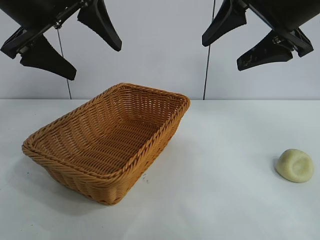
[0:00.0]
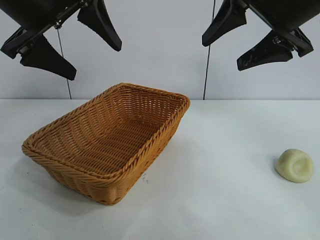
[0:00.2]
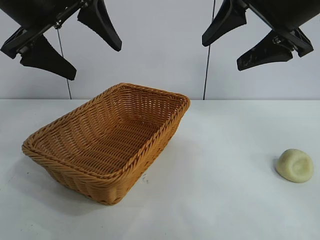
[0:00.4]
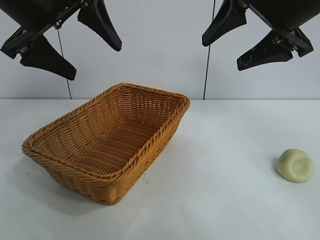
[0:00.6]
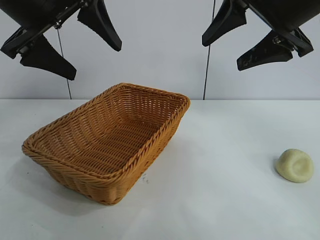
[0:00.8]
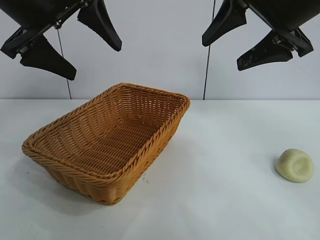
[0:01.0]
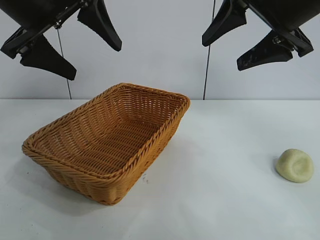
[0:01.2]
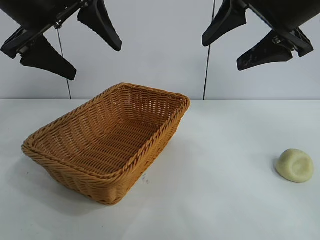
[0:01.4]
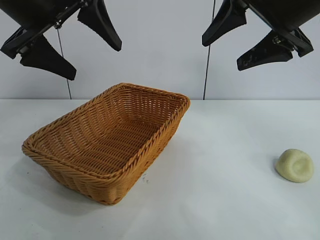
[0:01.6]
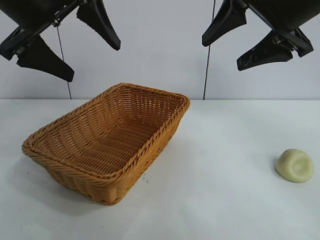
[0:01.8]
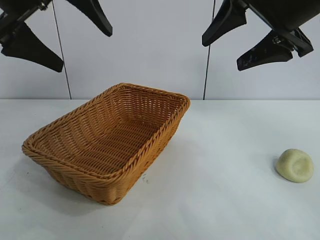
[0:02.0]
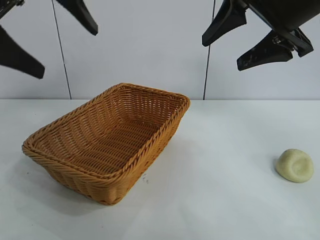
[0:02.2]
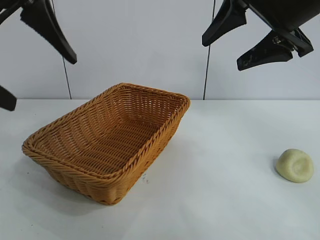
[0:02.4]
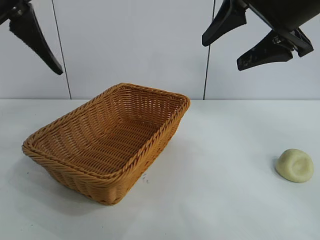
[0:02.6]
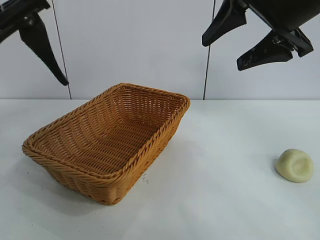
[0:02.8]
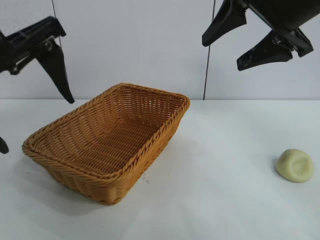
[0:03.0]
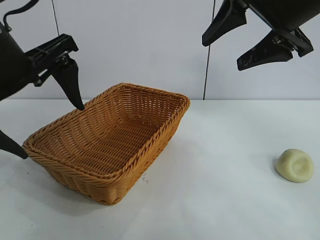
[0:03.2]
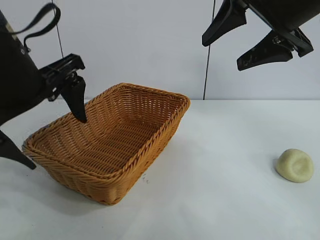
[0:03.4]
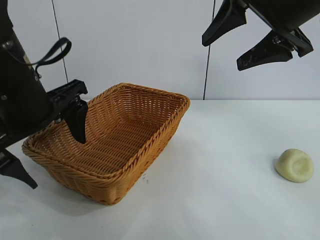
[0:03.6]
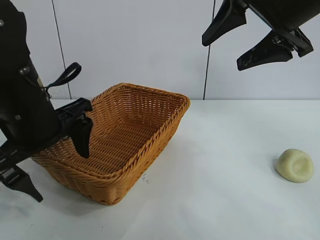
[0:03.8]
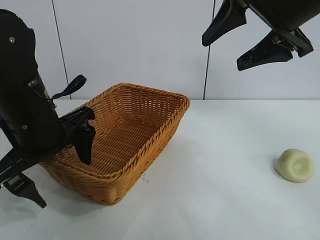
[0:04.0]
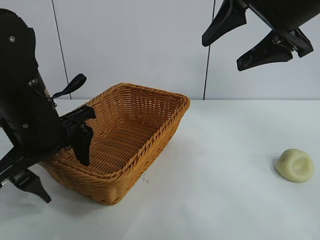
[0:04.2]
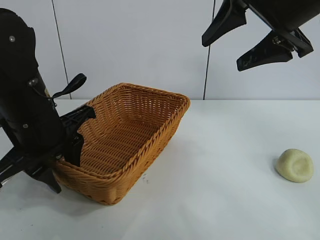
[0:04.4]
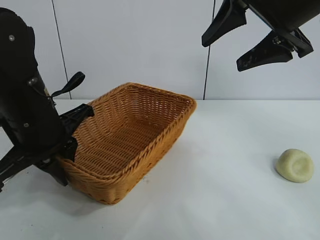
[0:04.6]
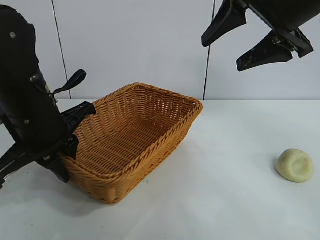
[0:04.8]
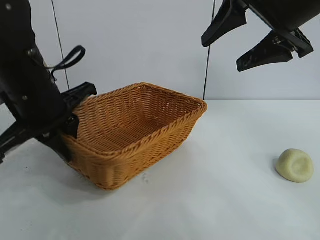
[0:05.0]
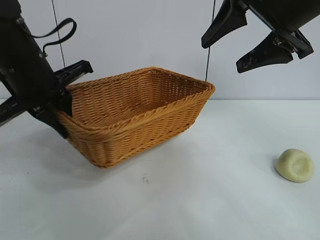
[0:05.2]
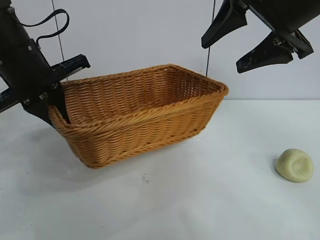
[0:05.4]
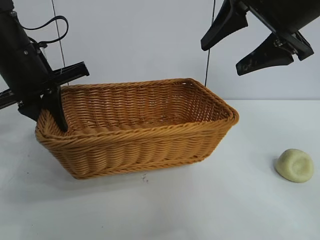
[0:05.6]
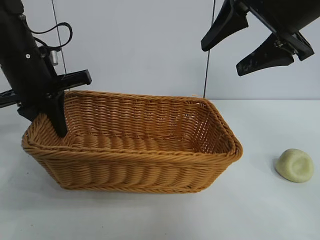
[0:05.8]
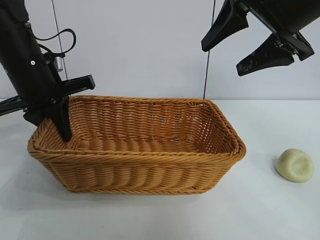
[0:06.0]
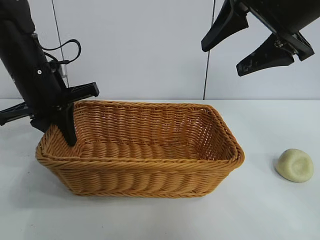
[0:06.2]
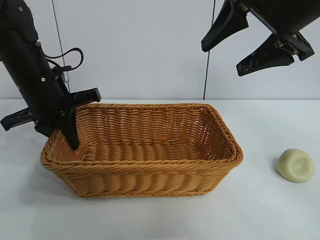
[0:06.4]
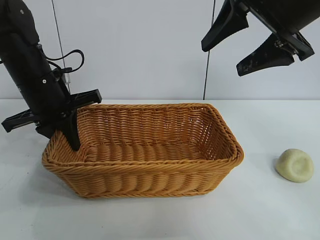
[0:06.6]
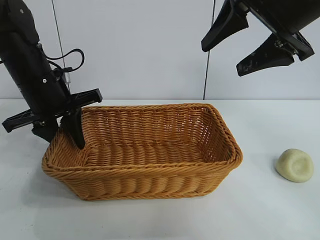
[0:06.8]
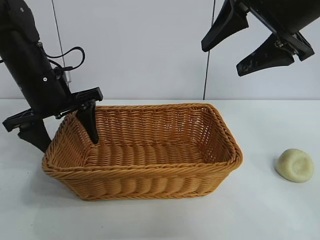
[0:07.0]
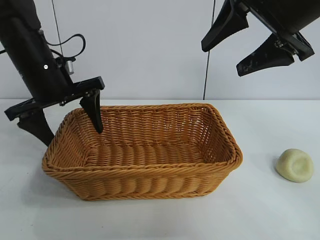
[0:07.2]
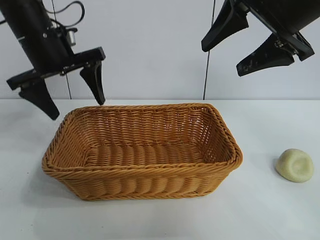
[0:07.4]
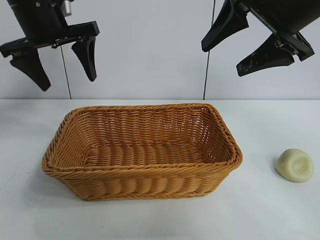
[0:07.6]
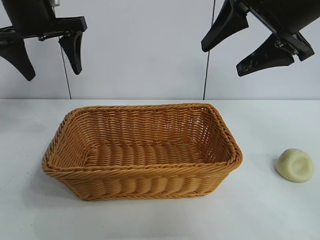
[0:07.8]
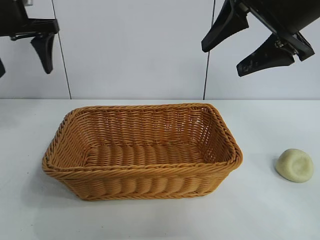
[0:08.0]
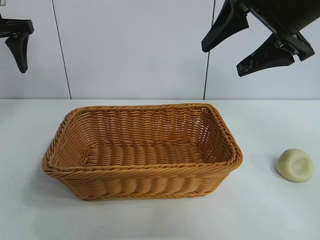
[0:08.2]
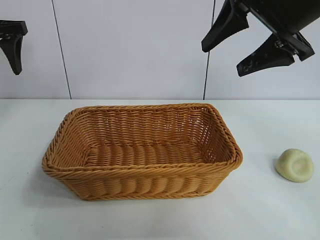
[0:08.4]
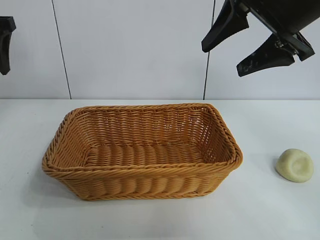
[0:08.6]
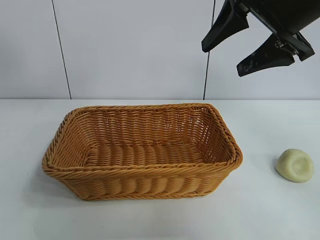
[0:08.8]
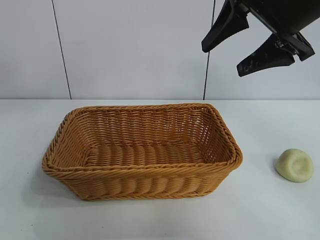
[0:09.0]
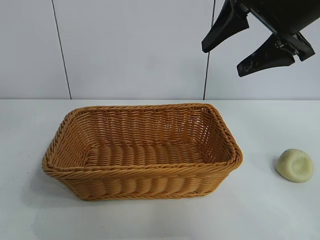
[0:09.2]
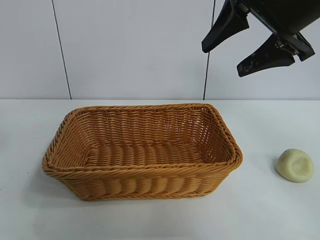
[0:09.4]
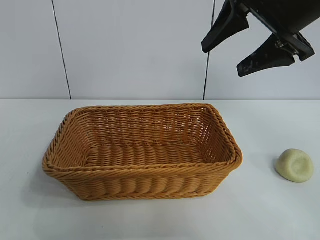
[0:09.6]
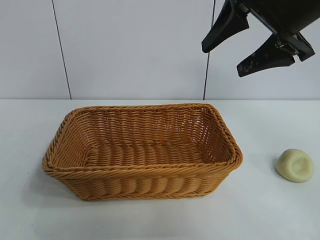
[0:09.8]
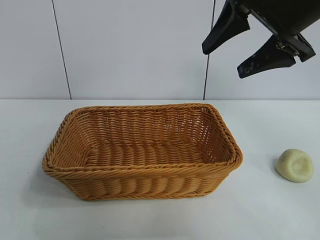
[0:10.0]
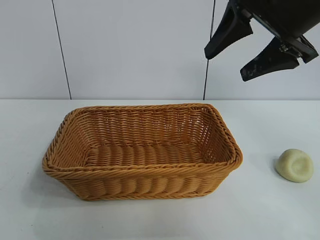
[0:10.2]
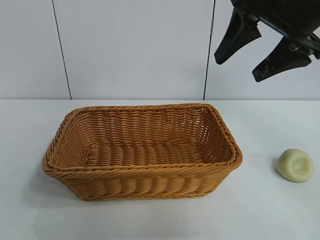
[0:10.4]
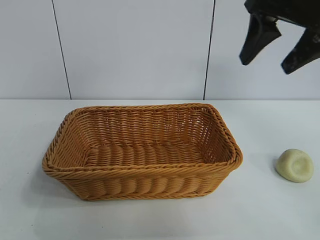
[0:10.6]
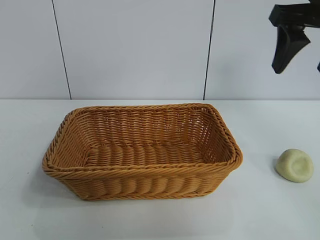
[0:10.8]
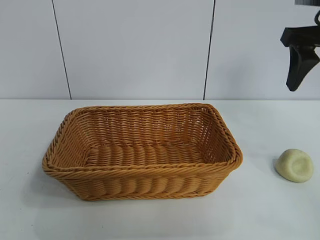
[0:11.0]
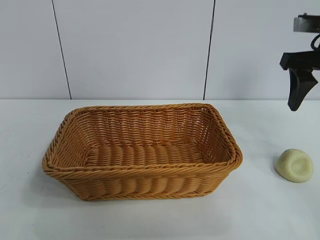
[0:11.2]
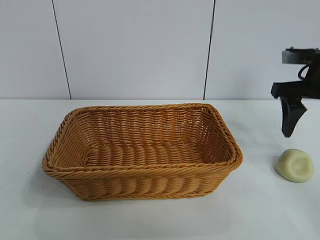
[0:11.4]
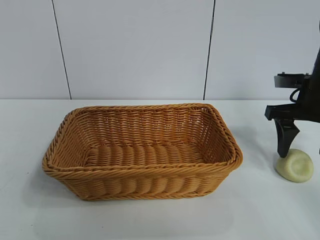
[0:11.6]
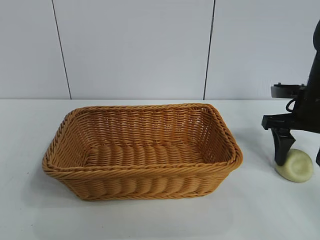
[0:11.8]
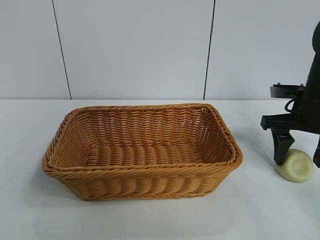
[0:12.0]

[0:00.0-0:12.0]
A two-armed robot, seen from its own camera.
Task of the whole recording: pick up the egg yolk pastry and put it into the basket.
Step, 0:01.6 to 0:04.4: Grasp the basket with left gripper.
Step, 0:04.8 to 0:07.0: Place the basket in the center of view with left gripper.

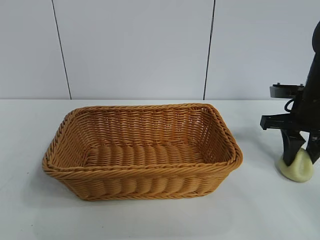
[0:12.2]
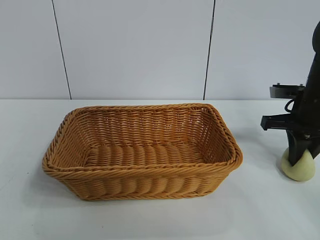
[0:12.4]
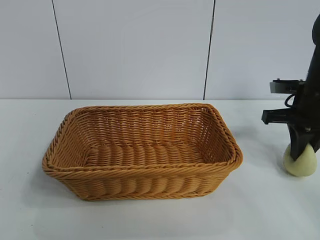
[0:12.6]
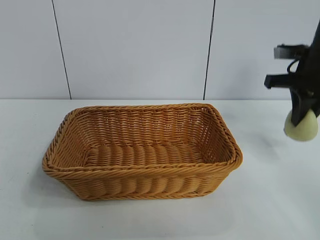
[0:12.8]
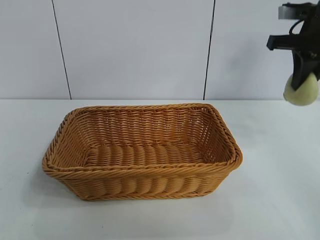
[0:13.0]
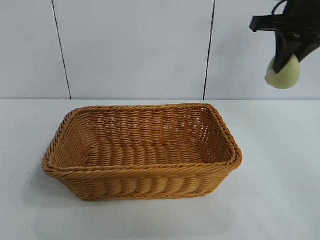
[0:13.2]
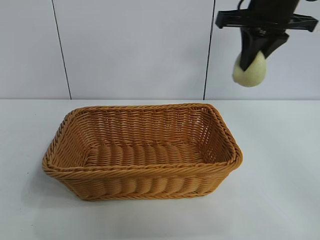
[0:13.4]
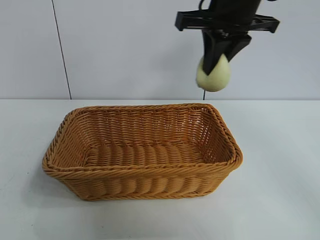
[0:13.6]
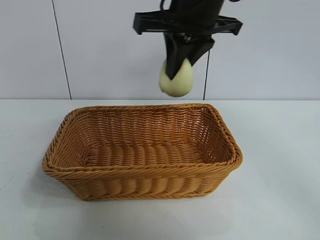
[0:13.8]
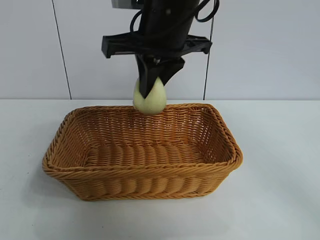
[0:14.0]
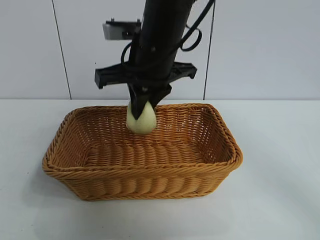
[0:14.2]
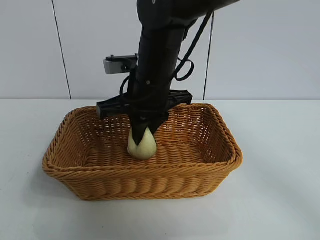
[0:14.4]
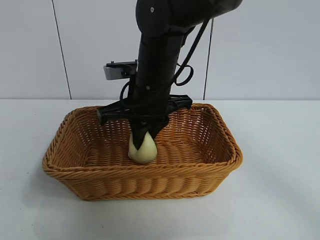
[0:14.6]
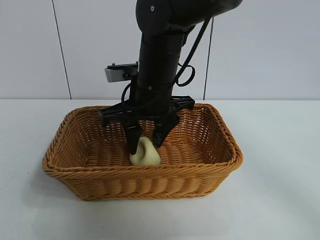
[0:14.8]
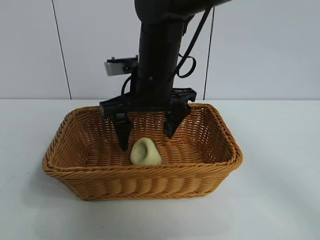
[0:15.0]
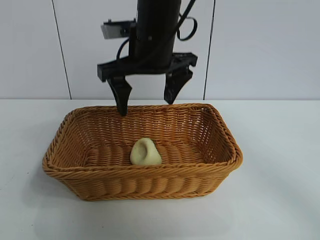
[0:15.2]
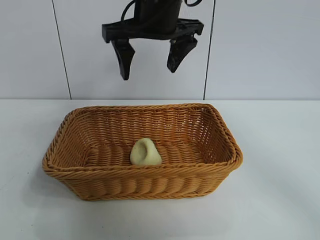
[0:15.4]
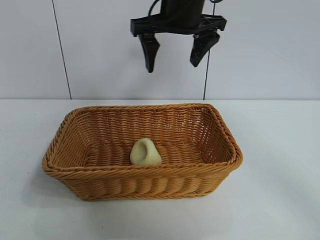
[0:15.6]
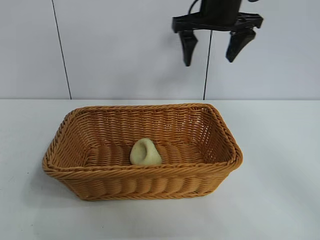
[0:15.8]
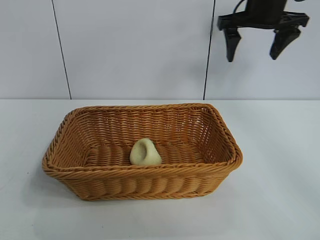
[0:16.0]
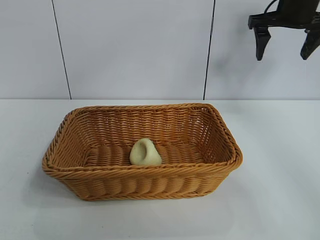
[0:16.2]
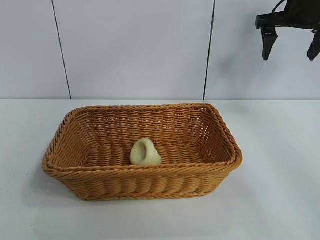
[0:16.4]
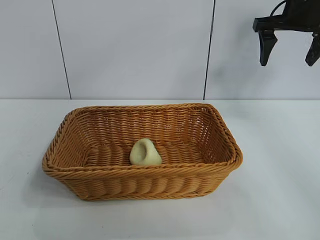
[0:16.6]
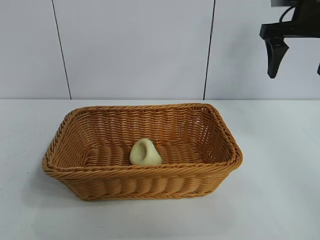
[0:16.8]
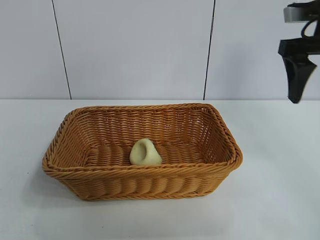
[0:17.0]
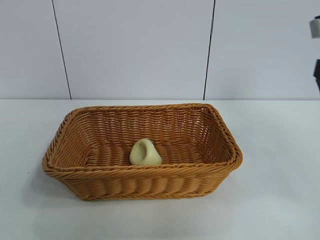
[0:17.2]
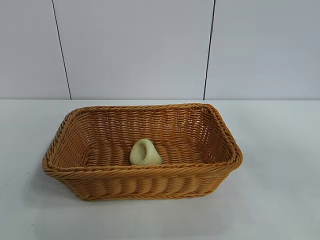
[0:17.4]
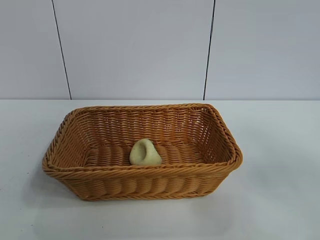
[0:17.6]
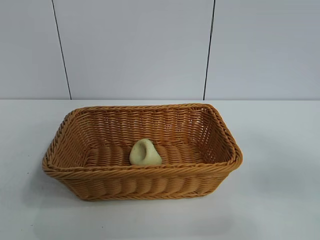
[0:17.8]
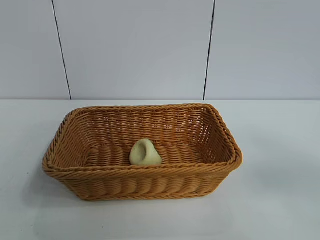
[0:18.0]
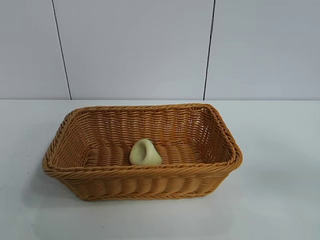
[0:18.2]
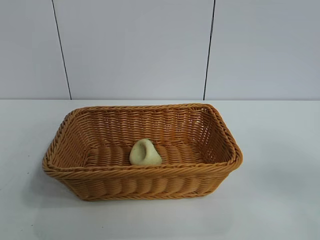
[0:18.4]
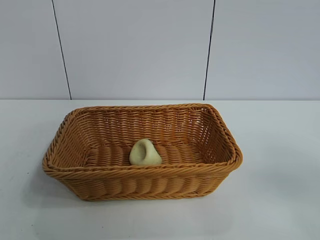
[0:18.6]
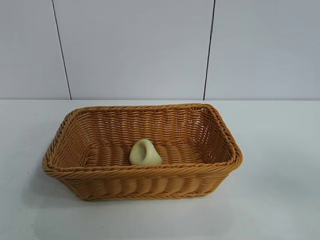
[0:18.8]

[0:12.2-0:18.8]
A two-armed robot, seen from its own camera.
Task of the whole recording: pick up the egg yolk pastry and put it into the basket.
Step, 0:12.4 to 0:14.8: Place the egg yolk pastry in the basket with right gripper.

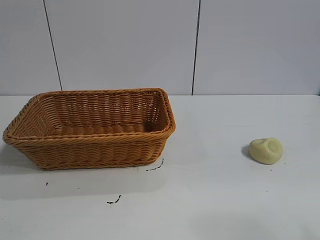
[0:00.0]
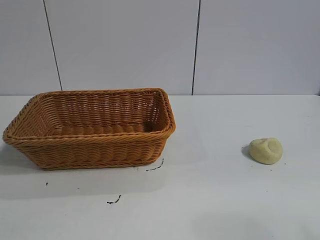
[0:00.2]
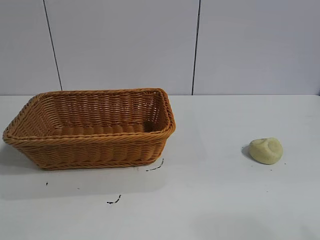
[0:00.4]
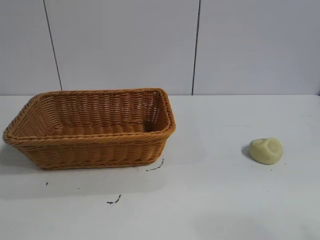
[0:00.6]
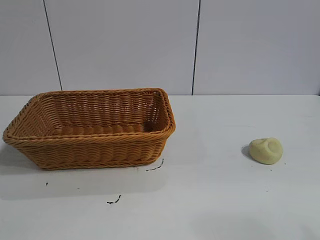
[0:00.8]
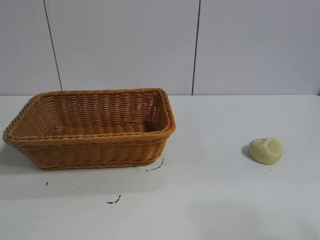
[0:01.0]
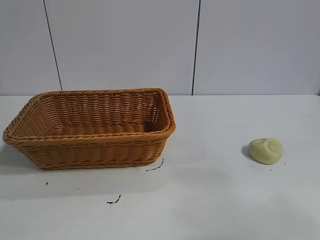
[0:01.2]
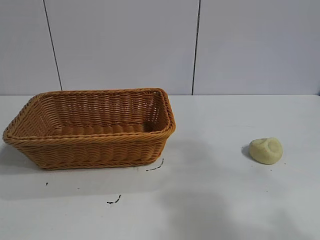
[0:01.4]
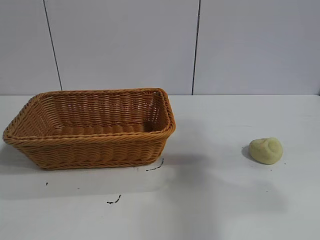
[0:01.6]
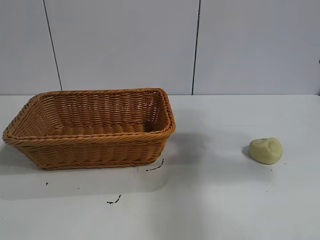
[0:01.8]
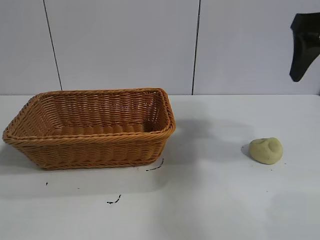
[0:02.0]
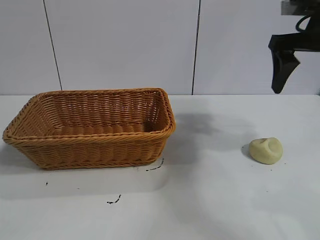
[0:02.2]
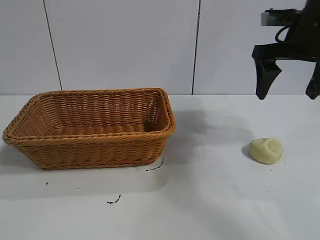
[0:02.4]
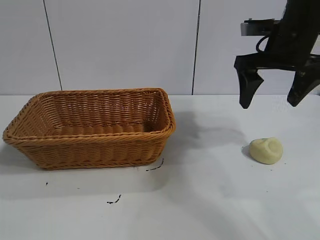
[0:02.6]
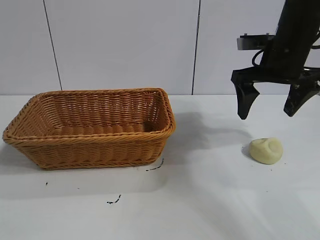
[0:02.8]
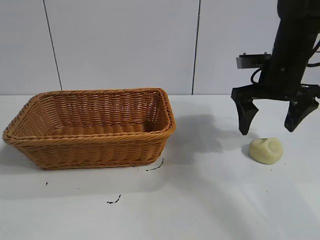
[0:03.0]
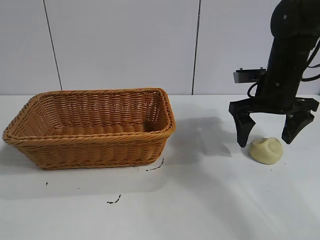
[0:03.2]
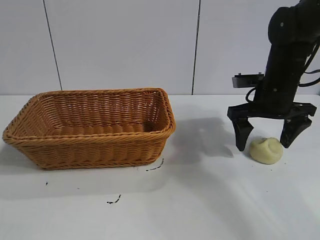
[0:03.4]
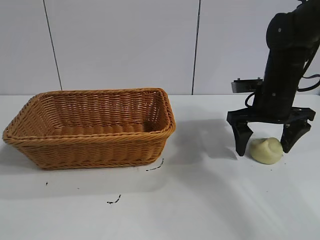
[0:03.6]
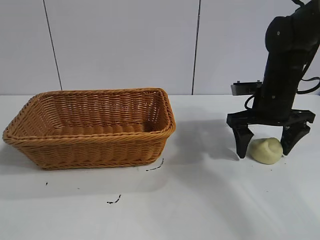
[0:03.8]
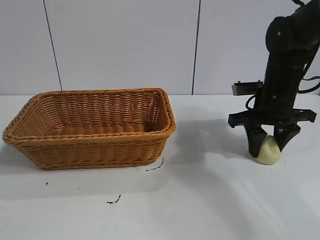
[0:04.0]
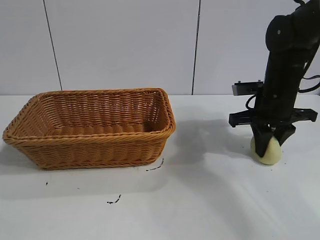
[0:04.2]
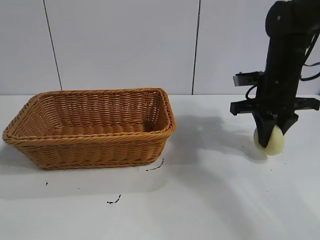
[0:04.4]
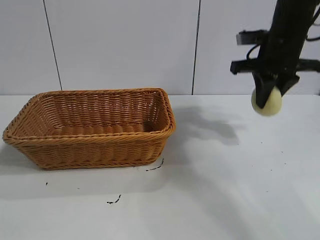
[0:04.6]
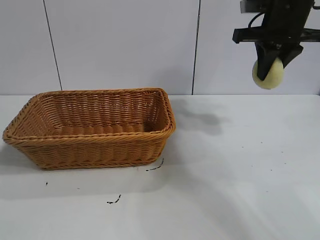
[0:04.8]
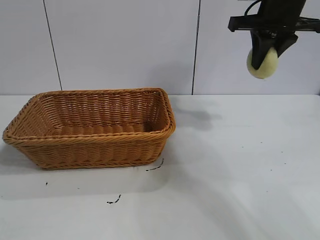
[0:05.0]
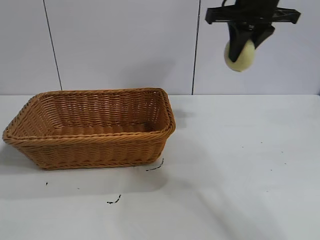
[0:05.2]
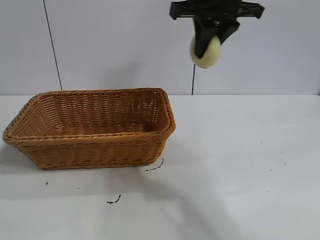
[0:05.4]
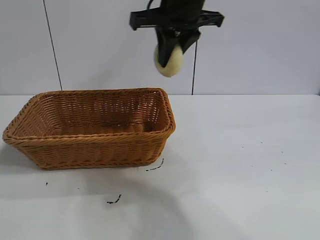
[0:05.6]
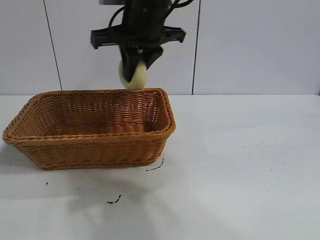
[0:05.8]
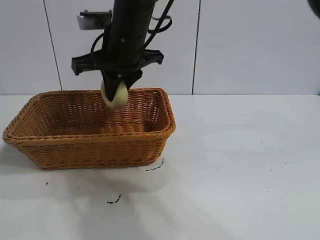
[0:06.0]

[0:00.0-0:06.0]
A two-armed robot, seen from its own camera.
Task of the whole recording: pick up the egg yolk pastry and put it into the basket.
Step, 0:01.0 to 0:04.2: Grasp egg yolk pastry with right gripper.
